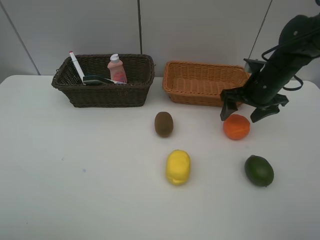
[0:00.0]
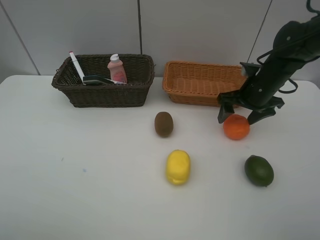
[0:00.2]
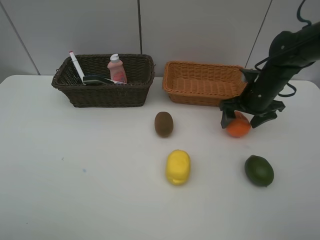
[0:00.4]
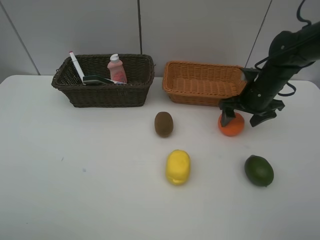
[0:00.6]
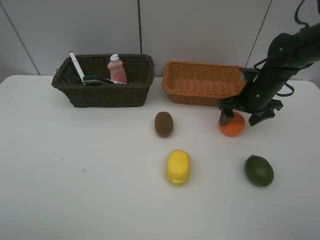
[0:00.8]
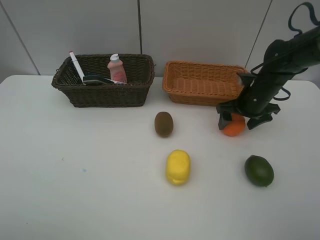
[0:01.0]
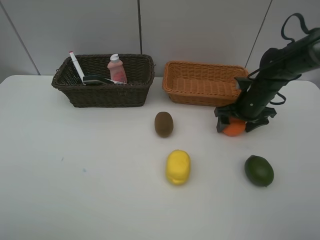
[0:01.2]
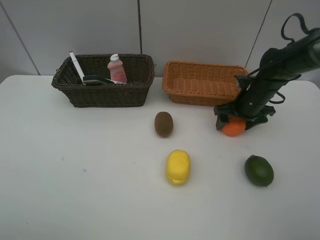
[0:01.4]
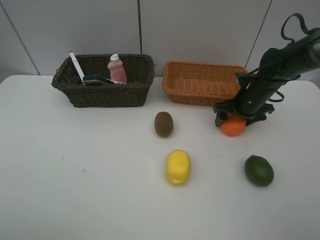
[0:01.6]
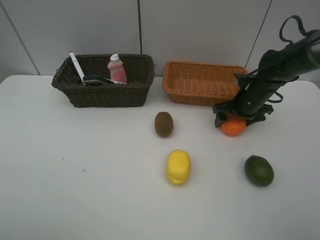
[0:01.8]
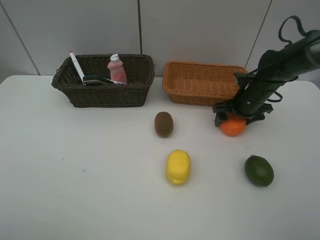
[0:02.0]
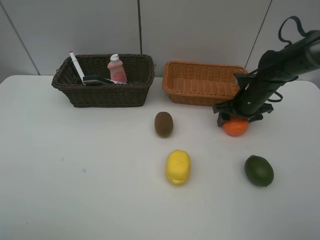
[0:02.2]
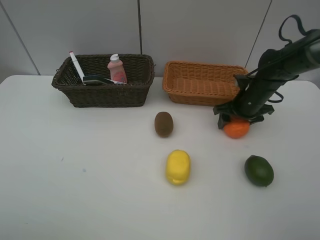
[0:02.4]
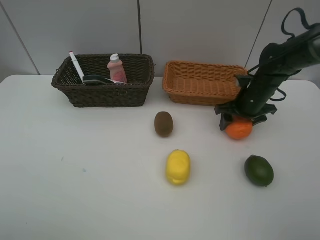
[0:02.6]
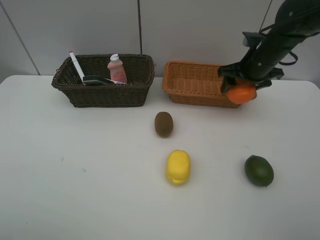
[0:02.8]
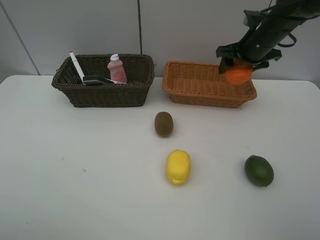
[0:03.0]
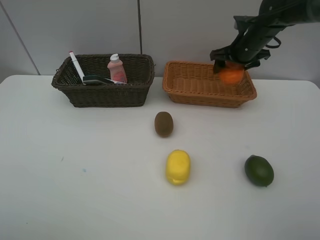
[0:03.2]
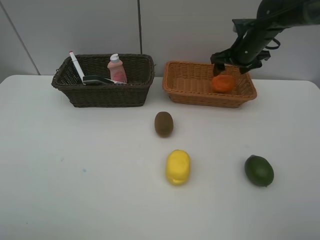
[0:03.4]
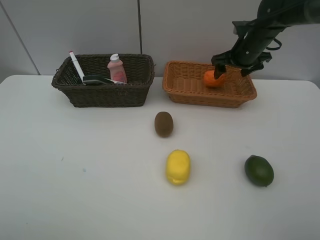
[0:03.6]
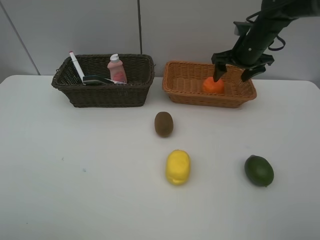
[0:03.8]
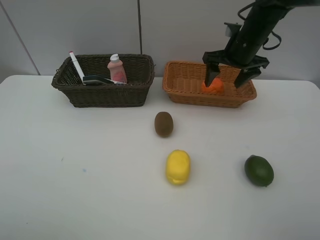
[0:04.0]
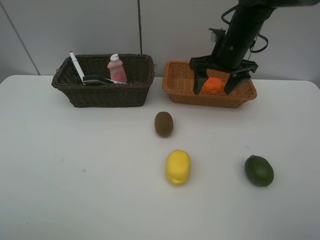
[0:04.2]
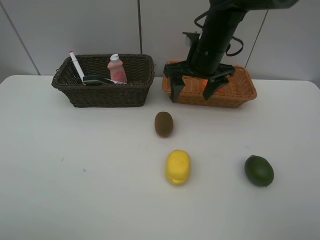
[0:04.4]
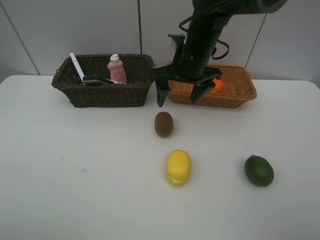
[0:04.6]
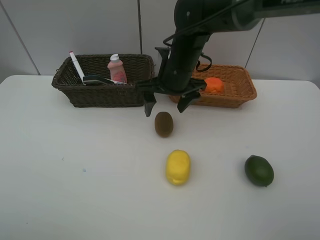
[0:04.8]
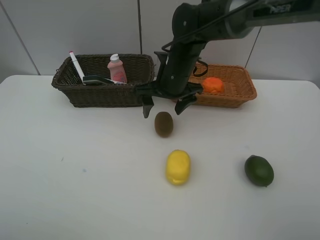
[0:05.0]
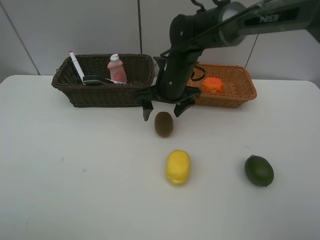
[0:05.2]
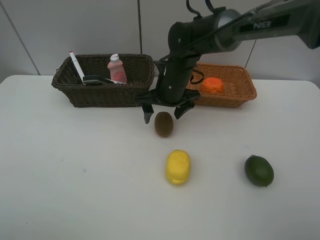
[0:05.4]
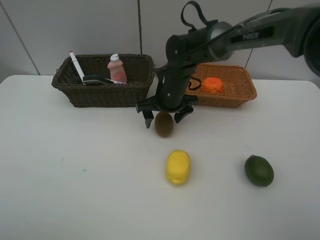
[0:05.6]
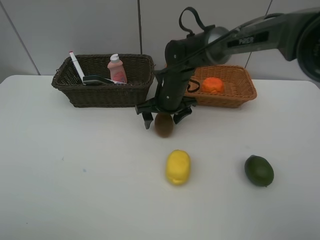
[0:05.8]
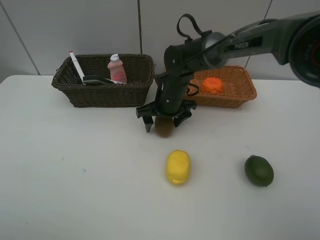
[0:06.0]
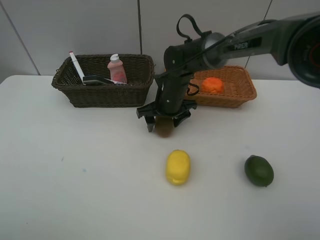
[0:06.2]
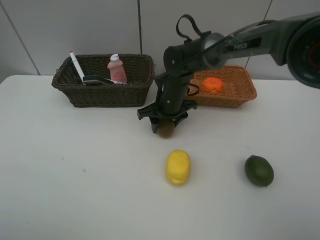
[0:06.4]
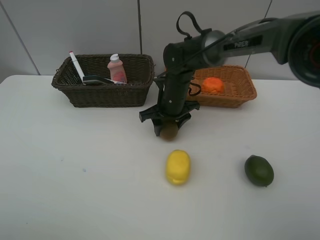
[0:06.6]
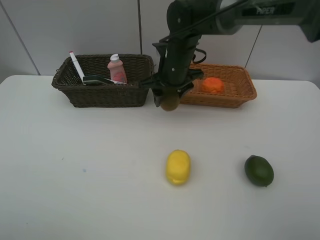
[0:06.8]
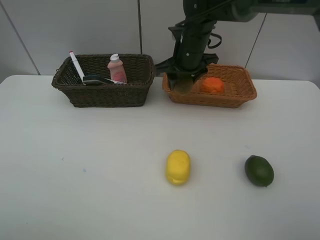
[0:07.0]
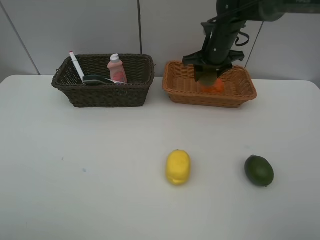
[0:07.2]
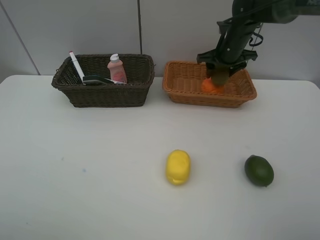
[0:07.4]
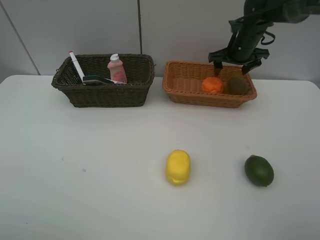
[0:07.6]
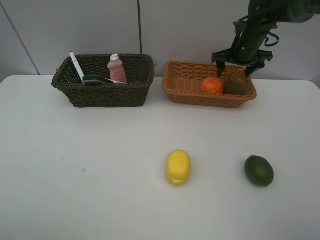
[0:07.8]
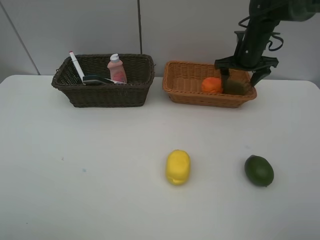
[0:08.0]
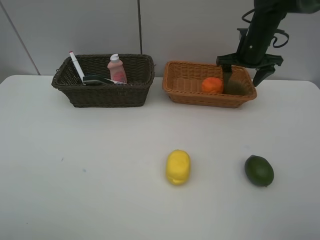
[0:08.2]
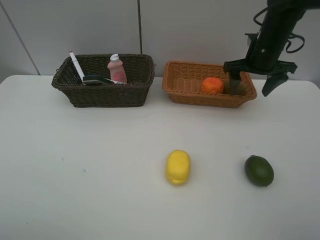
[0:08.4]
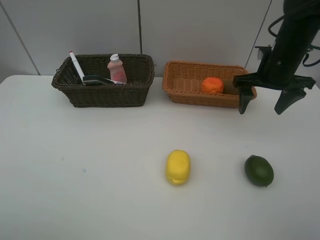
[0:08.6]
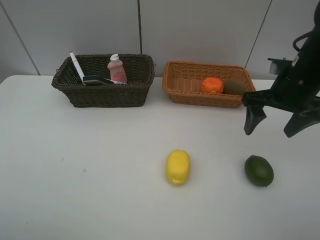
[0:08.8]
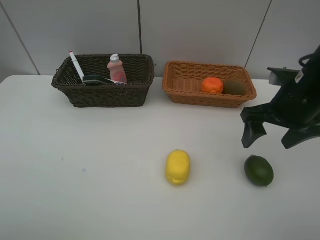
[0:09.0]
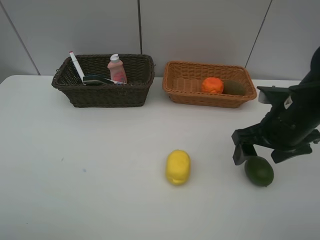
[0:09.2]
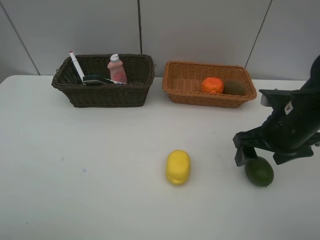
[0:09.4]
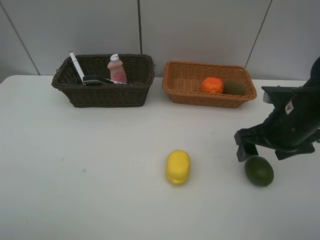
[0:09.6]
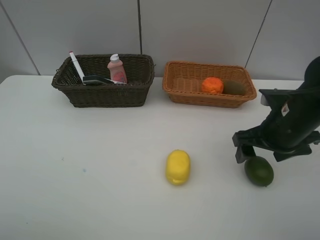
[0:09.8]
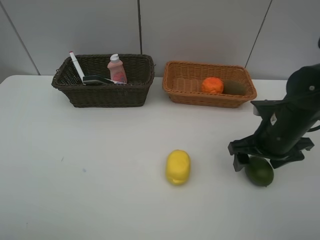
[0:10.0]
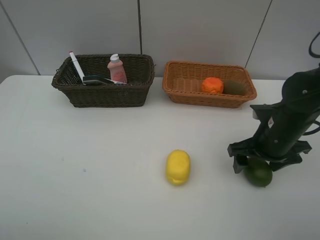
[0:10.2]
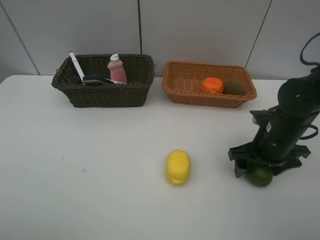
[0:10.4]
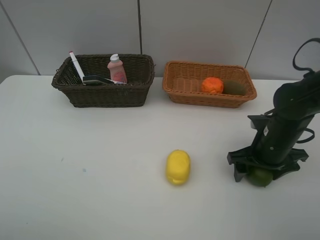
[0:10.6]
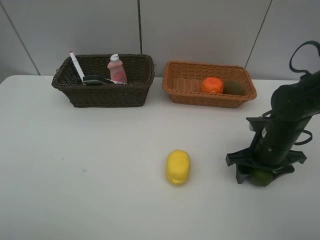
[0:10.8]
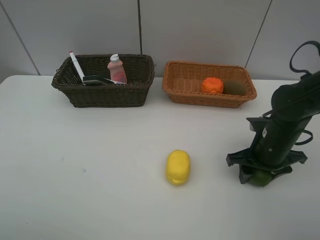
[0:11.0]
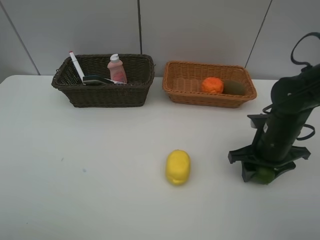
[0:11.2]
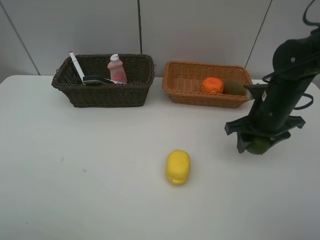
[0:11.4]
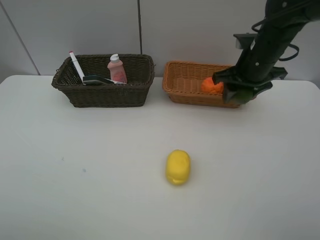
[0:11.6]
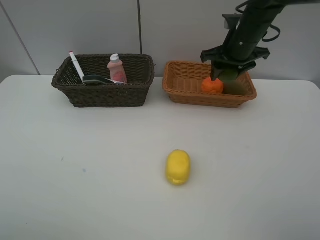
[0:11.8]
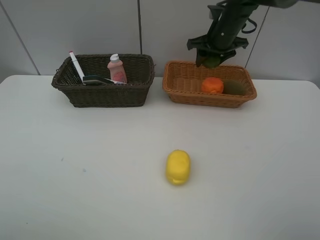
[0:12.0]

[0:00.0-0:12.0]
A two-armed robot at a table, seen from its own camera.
Task of the whole recording: Place multiple objects separately in different baskets.
Step, 0:00.0 to 0:02.6: Pick up the orange with right gripper.
Step, 0:02.8 to 0:03.4: Place the orange in the light basket with right gripper.
Step, 0:03.6 to 0:06.6: Pick up kiwi with right gripper.
Step, 0:06.8 to 0:07.6: Place the kiwi in the light basket with right gripper.
Step, 0:07.8 to 0:11.2: Pick up the lime with right gripper.
0:00.0 to 0:01.6: The right gripper is displaced downward by approximately 5 cm.
0:01.6 to 0:03.0: The right gripper is displaced upward and forward by about 15 cm, and closes its fingers.
0:03.0 to 0:04.4: The right gripper shifts approximately 15 cm to the left and backward, and opens.
0:04.4 to 0:06.0: The right gripper goes approximately 15 cm downward and to the left.
0:06.0 to 0:07.6: The right gripper moves to the right, forward and upward, approximately 25 cm, and closes and opens again.
0:07.6 to 0:09.0: The right gripper shifts approximately 25 cm backward.
0:09.0 to 0:10.4: The right gripper heads downward, covering approximately 10 cm.
0:10.4 to 0:12.0: The right gripper is displaced forward and upward by some 25 cm, and closes its fingers.

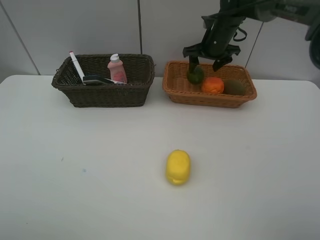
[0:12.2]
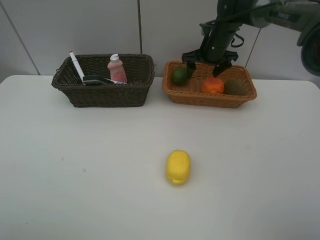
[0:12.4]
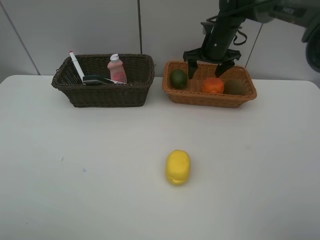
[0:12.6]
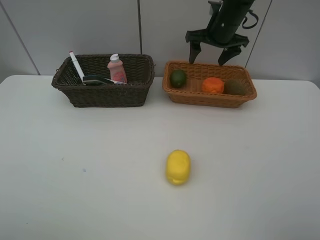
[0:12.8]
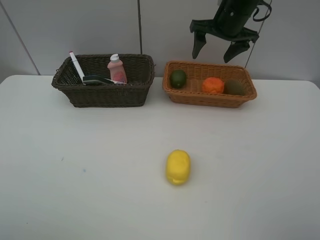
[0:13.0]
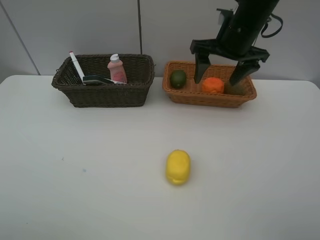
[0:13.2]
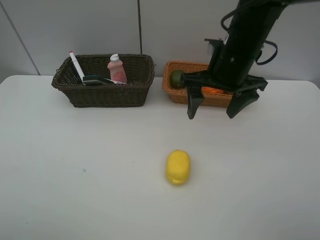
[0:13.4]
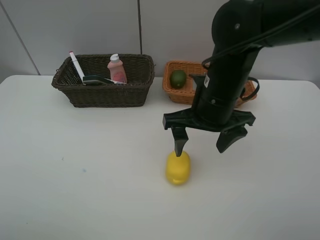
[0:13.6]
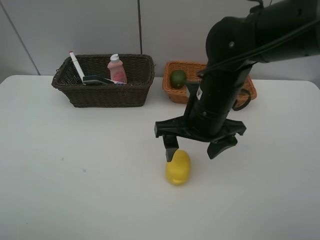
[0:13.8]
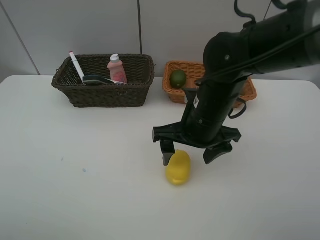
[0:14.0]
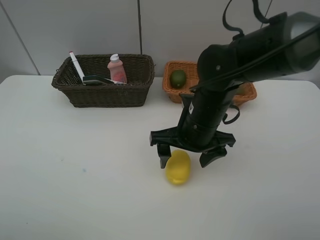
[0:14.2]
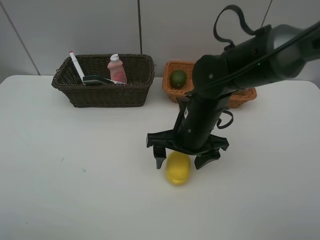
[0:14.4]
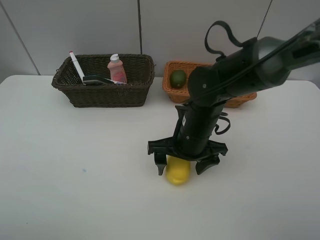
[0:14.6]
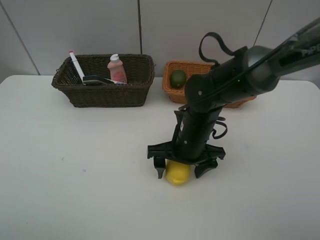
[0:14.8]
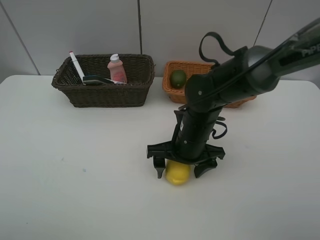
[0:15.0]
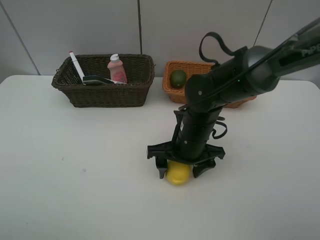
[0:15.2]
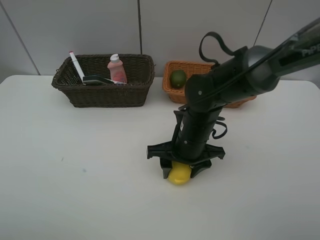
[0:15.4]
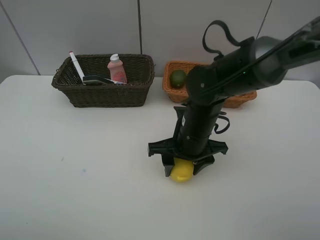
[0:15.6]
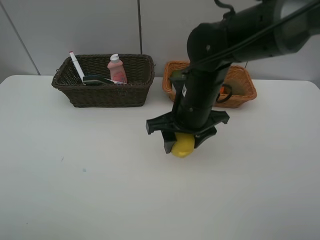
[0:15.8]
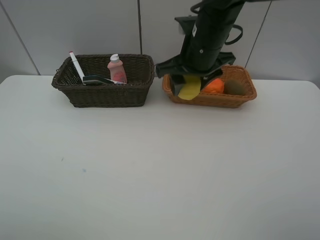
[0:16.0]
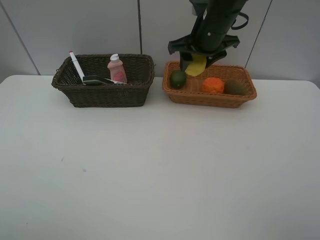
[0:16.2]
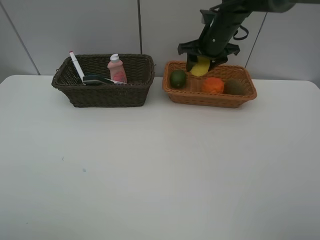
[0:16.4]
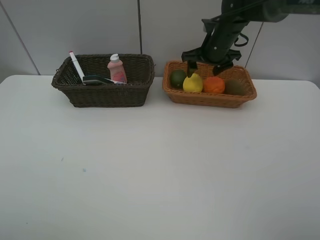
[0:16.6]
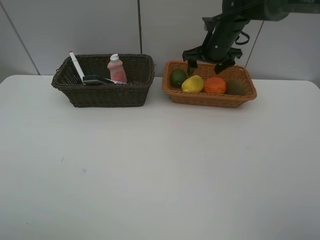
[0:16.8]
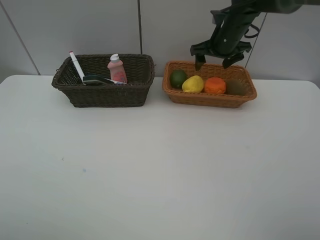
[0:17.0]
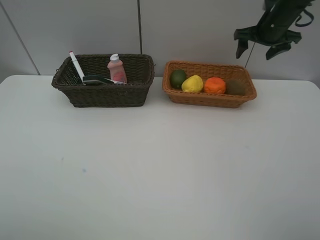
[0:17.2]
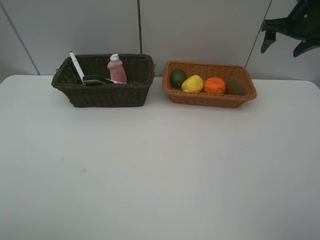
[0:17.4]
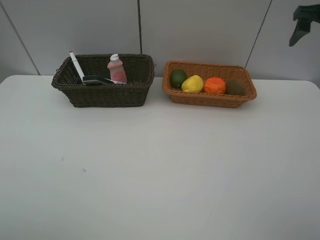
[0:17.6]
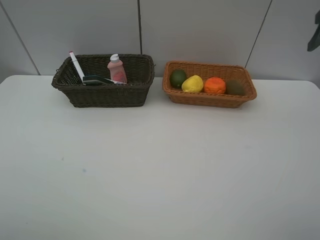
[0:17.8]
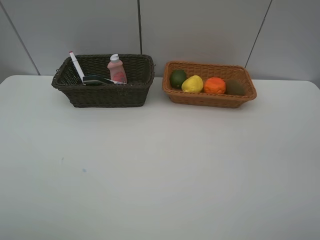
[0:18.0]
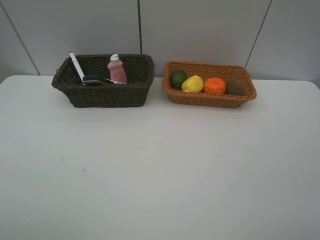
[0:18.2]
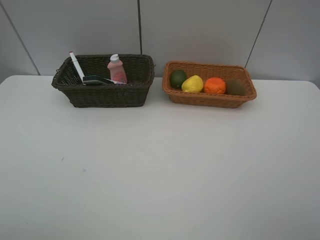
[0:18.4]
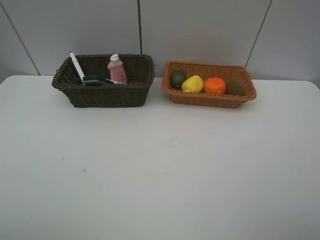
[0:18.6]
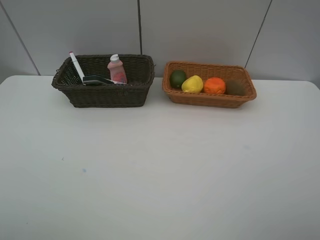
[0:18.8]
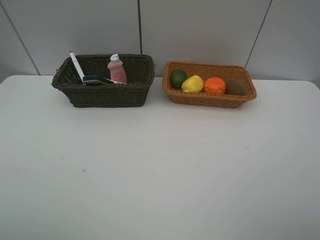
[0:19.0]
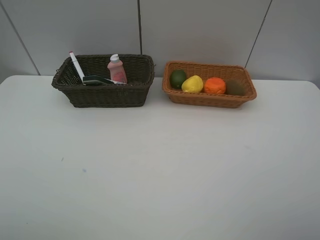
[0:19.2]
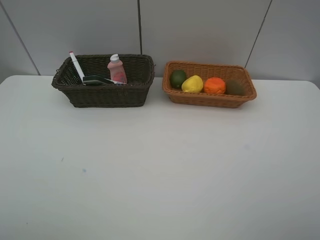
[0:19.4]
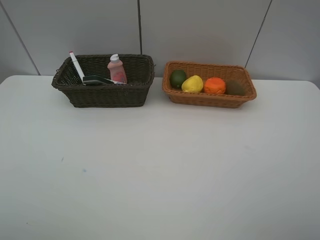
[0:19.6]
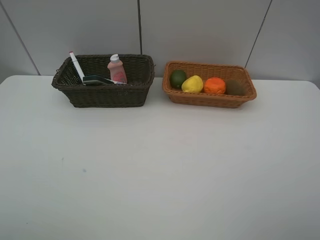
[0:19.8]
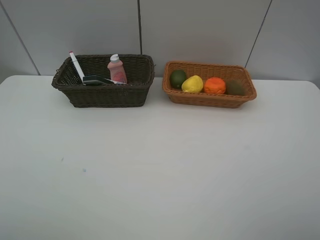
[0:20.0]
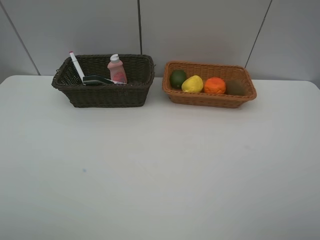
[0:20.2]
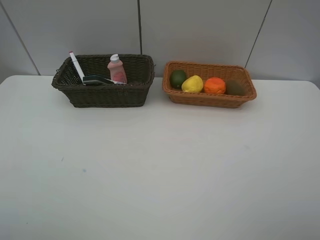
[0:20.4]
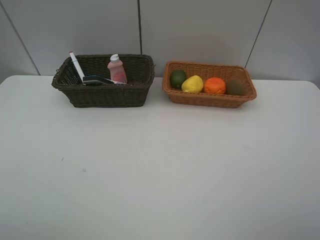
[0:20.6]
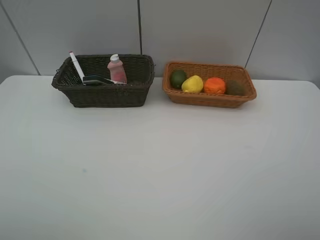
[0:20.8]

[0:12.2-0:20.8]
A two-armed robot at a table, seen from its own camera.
Task of the whole recording: Place multiple objects separately in different baskets.
Step, 0:12.4 to 0:15.6: Pick up the lemon with right gripper.
Step, 0:15.8 to 0:16.6: Place the lemon in the light basket with right gripper.
0:12.2 to 0:13.6: The right gripper moves backward, about 25 cm.
0:13.6 to 0:15.0: The right gripper moves downward, roughly 10 cm.
0:15.0 to 0:16.6: The right gripper moves forward, approximately 20 cm, and closes, then reopens.
0:16.6 to 0:18.0: The right gripper heads backward, to the right and upward, covering roughly 35 cm.
0:19.4 to 0:20.8: Neither gripper changes place.
